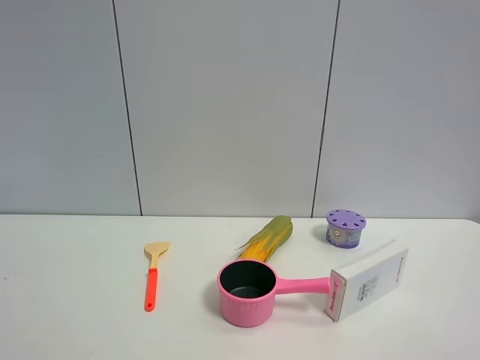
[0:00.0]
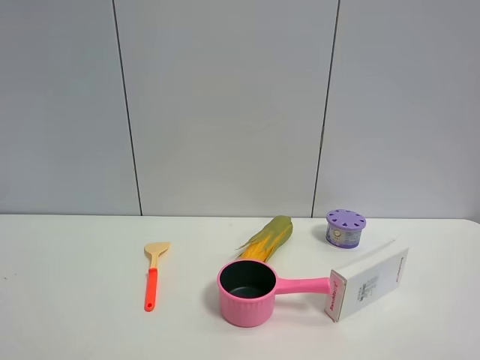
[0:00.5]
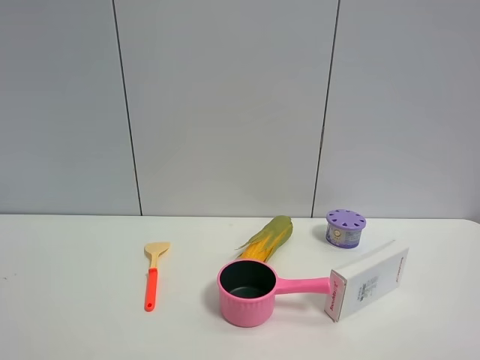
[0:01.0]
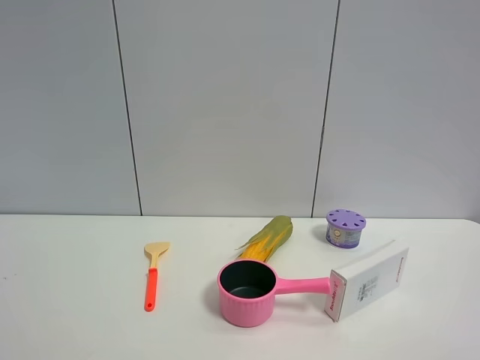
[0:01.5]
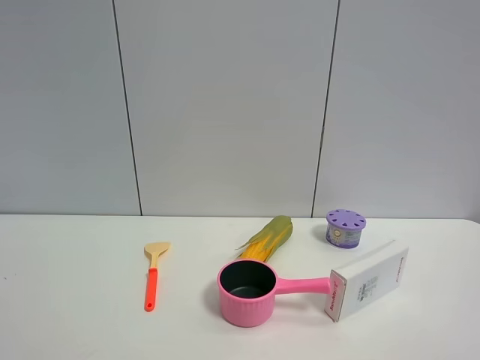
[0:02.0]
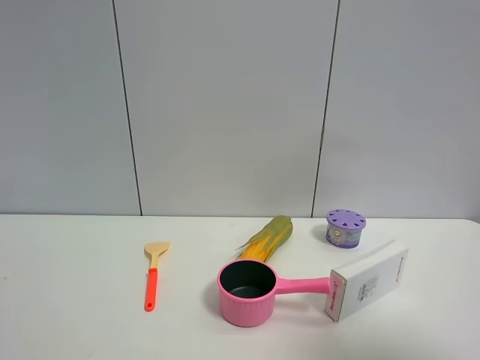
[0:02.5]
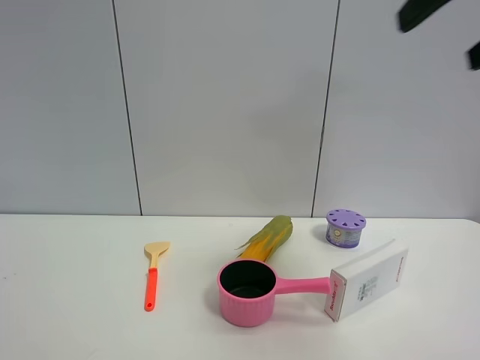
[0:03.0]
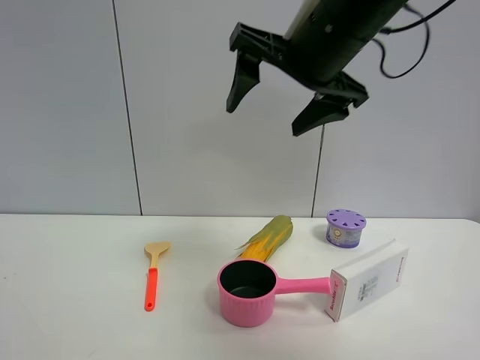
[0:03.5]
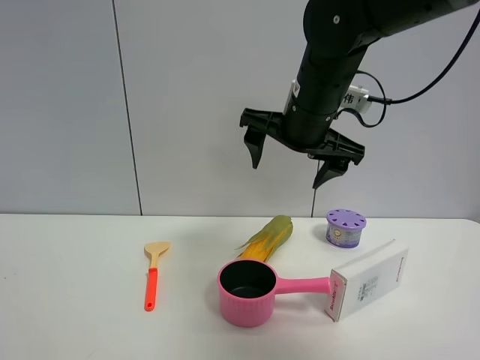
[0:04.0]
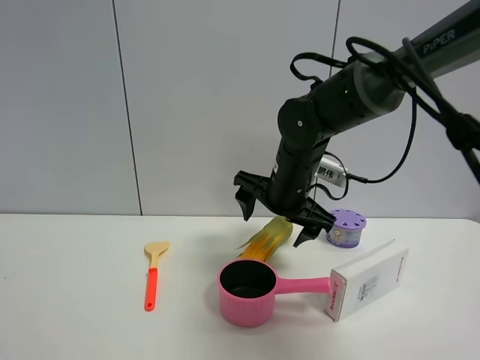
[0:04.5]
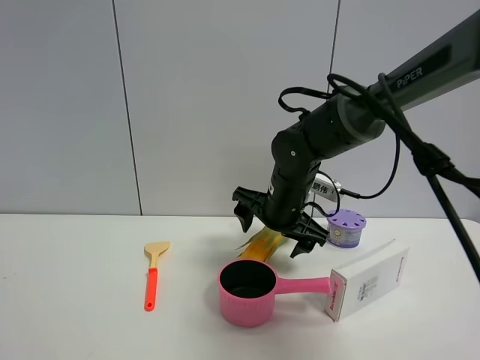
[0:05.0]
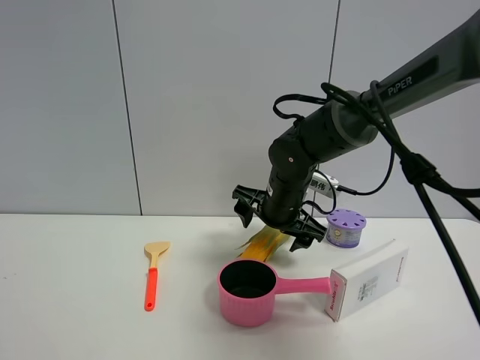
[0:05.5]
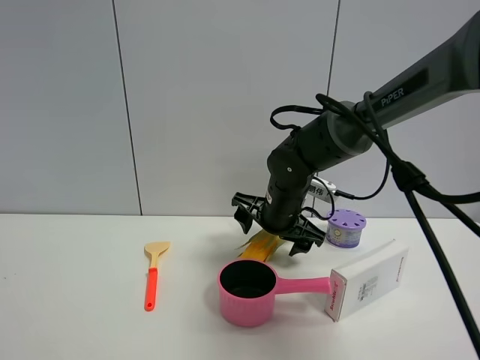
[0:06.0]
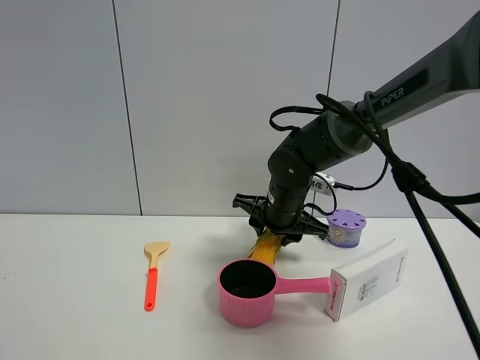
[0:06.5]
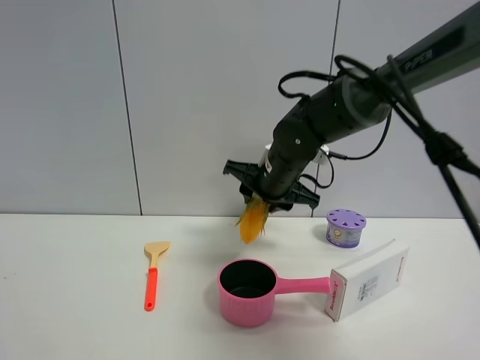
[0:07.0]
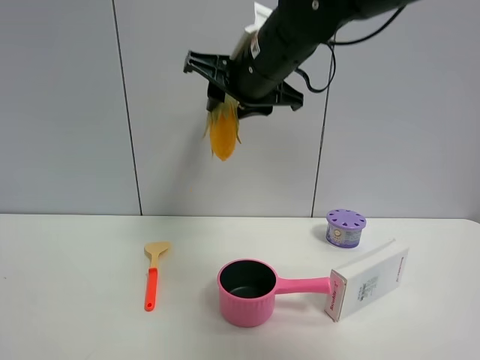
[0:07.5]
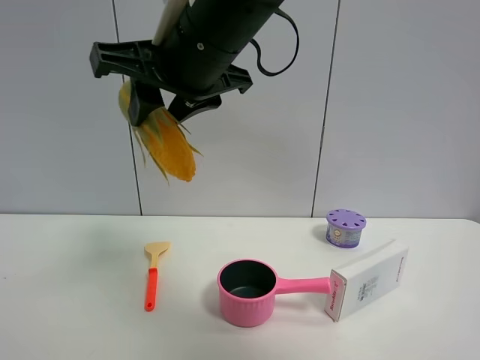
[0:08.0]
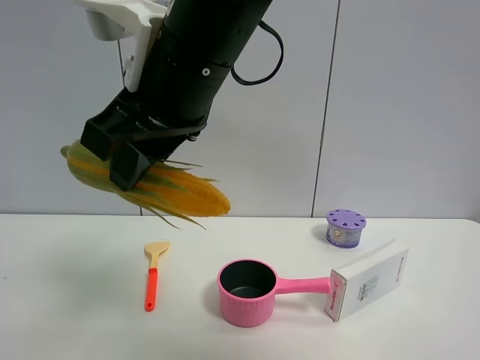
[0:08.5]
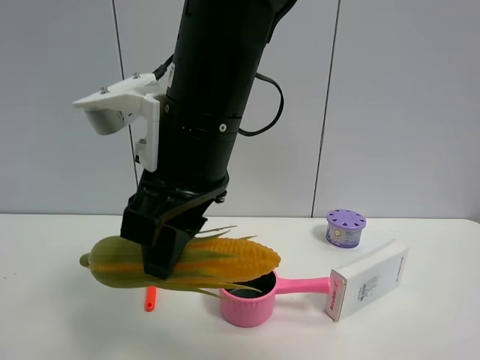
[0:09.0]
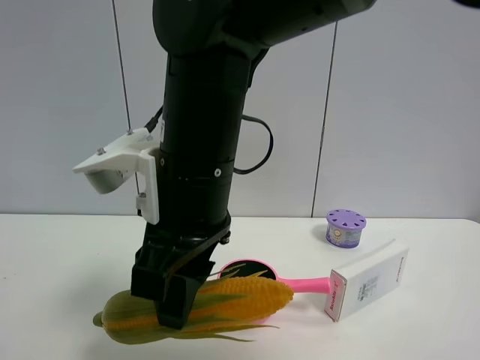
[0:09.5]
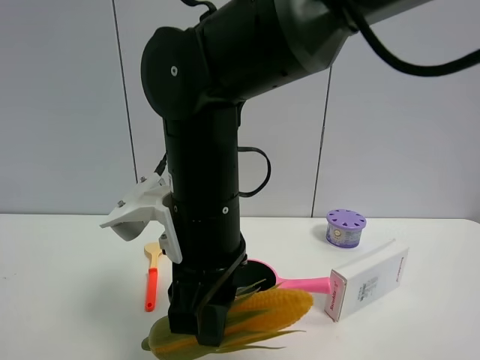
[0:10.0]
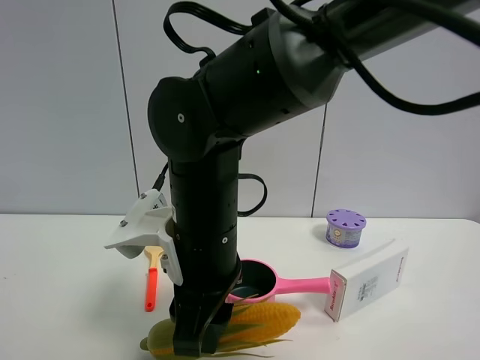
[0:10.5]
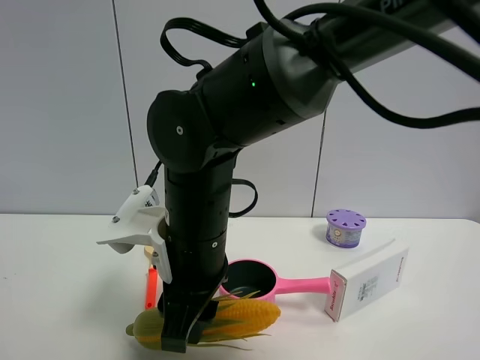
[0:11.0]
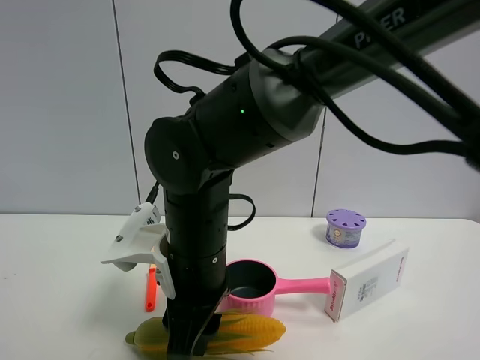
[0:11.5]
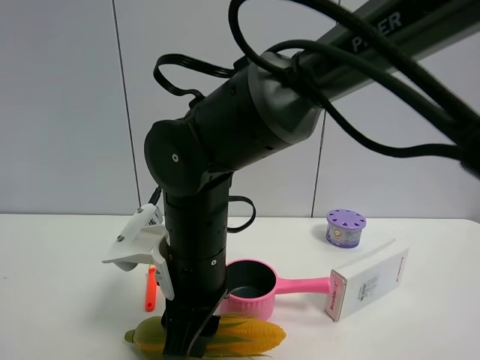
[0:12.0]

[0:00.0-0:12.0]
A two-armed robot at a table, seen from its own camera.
Task of the whole recording: the gripper move the object.
Step, 0.0 to 6.5 s: Grasp the corn with the right gripper.
0.0 to 2.0 s: Both grippers stay about where they are.
2.0 to 4.0 s: The right gripper travels forward and to the left by some 40 cm.
4.0 to 6.0 s: The right gripper goes about 15 cm downward.
6.0 to 8.0 s: The right gripper travels upward, backward and to the left by approximately 30 cm, and closes its fingers.
8.0 to 10.0 s: The right gripper shifts some 15 cm downward.
10.0 to 12.0 s: The right gripper travels downward by some 5 cm.

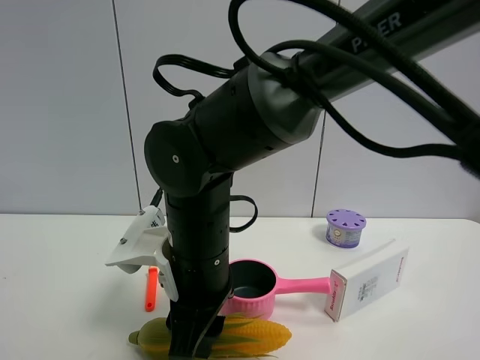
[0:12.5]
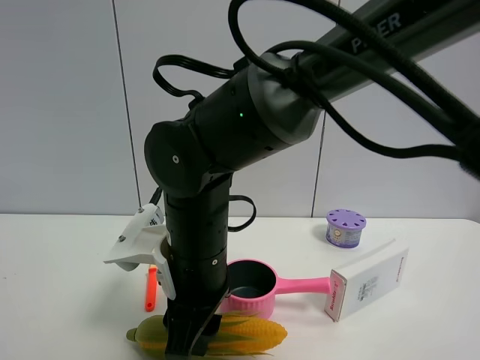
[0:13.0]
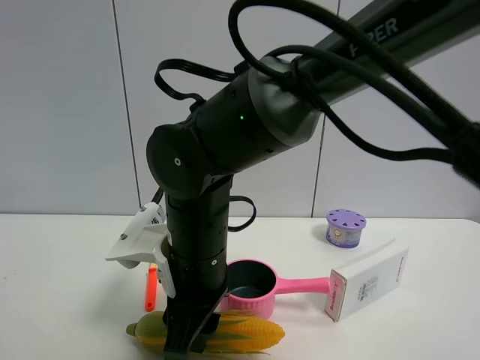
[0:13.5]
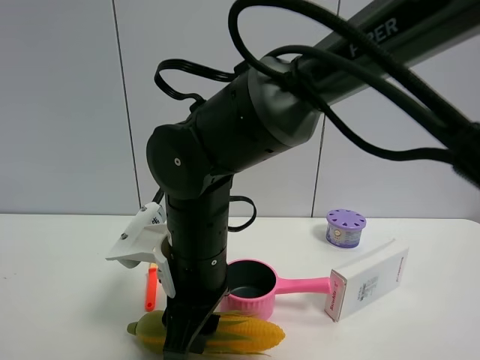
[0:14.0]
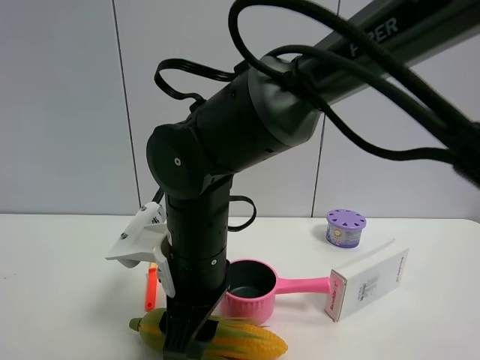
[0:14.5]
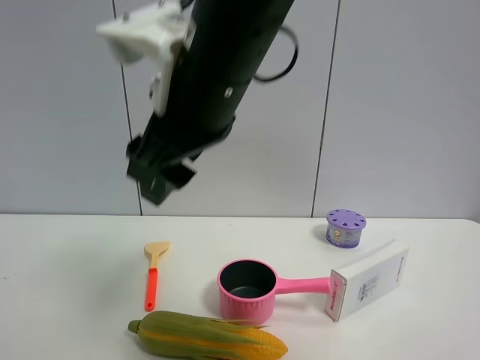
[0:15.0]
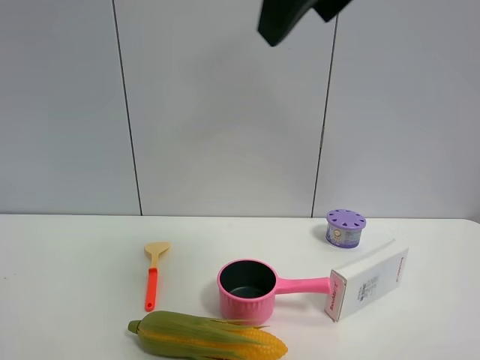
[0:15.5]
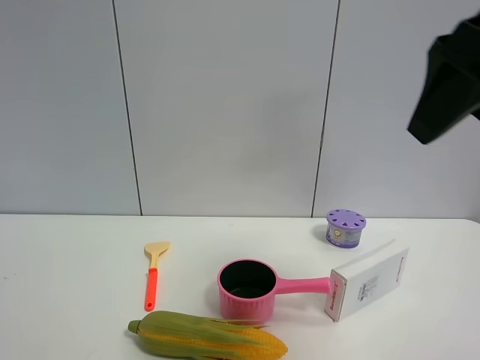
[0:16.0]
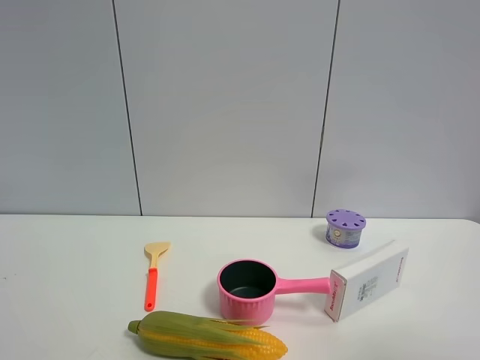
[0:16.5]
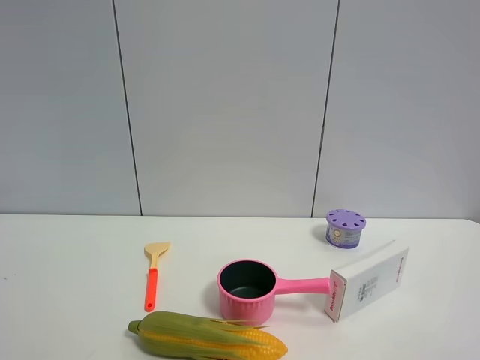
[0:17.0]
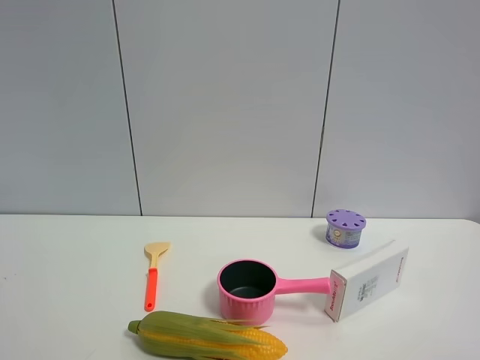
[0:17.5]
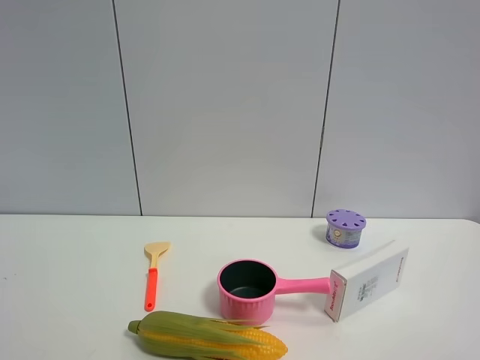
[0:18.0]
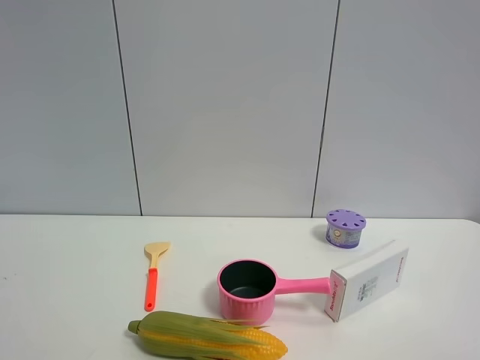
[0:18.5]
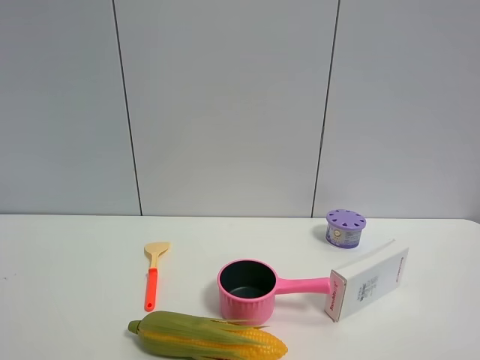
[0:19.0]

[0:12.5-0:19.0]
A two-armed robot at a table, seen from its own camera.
Task of the whole recording: the gripper move the object.
12.5 to 14.5 s: The right gripper opens.
14.5 to 17.0 s: The right gripper is displaced to the right, backward and upward by approximately 50 cm, and opens up.

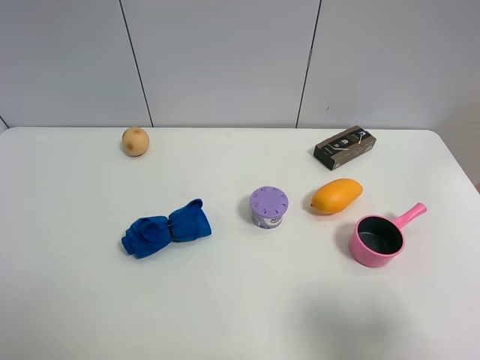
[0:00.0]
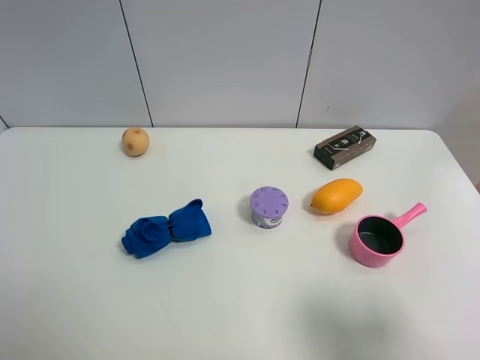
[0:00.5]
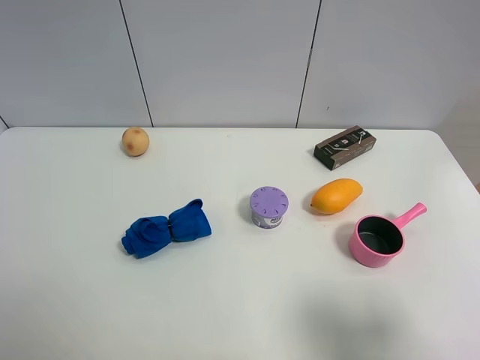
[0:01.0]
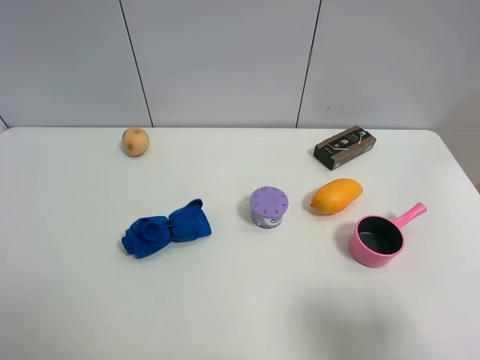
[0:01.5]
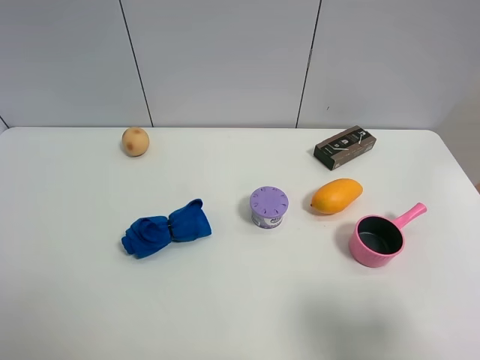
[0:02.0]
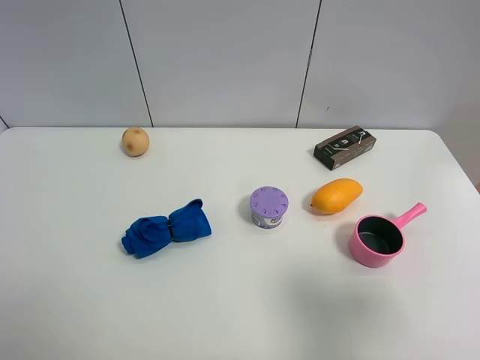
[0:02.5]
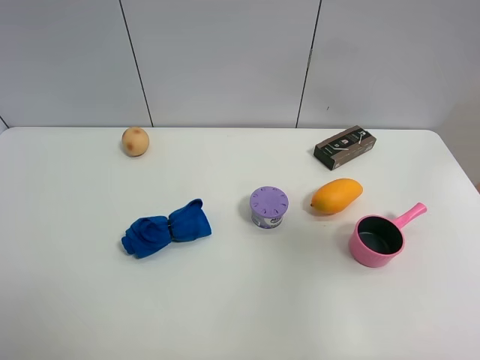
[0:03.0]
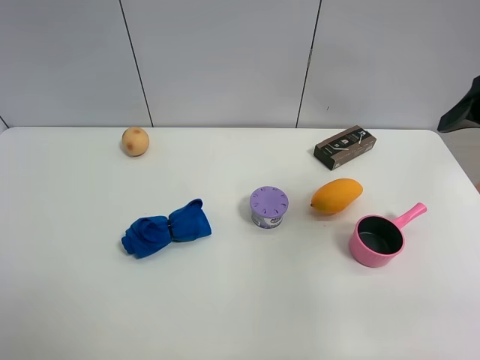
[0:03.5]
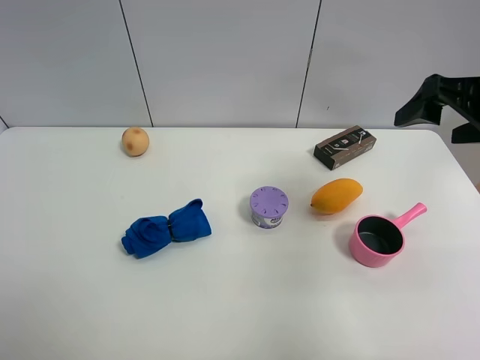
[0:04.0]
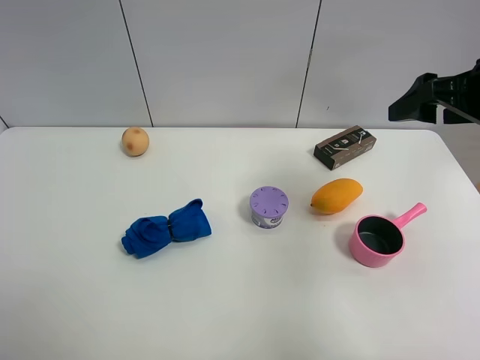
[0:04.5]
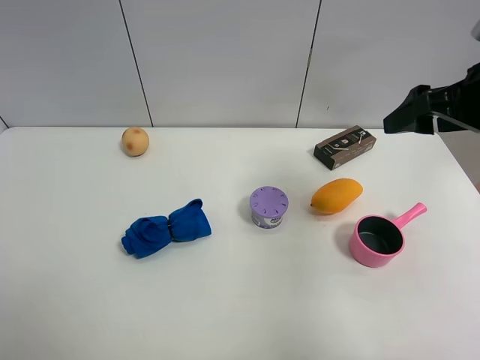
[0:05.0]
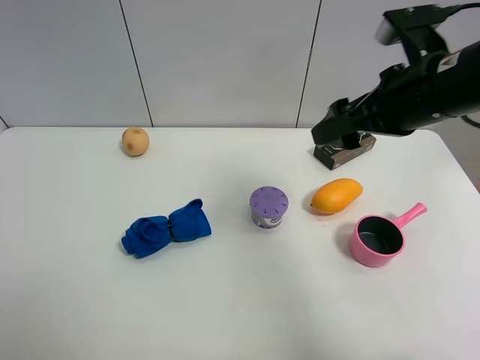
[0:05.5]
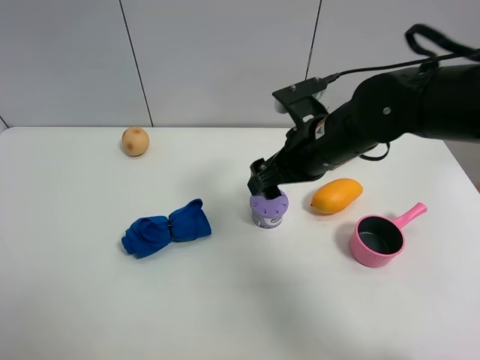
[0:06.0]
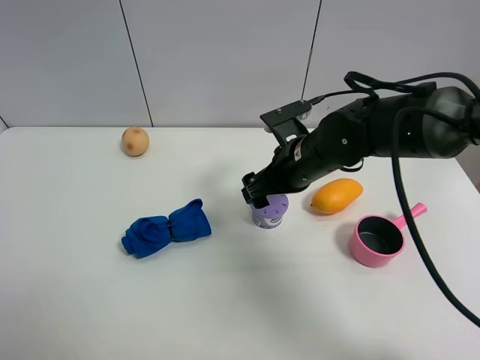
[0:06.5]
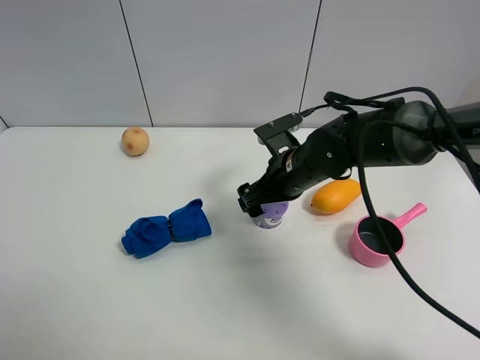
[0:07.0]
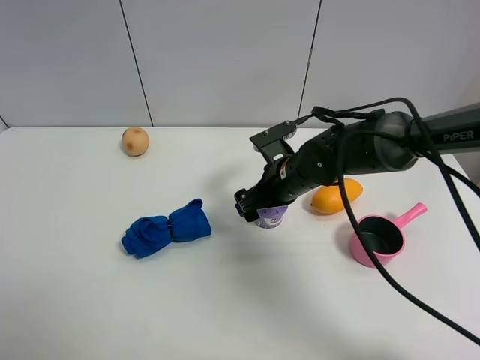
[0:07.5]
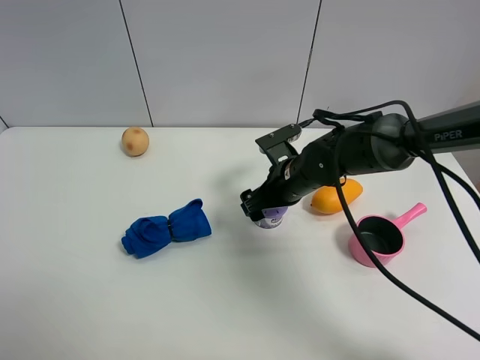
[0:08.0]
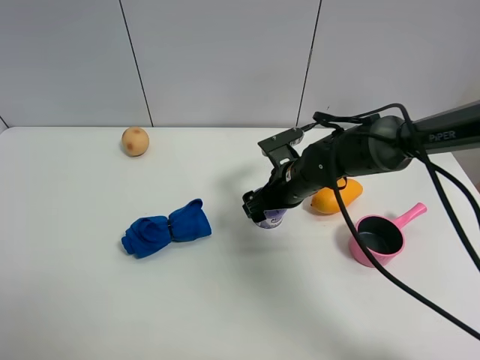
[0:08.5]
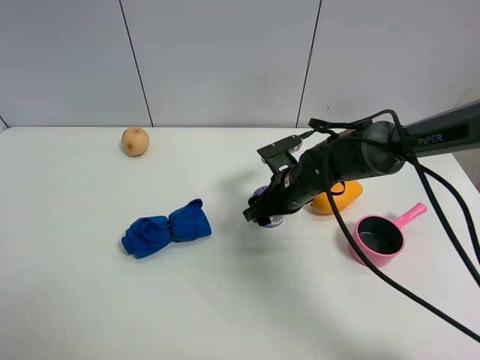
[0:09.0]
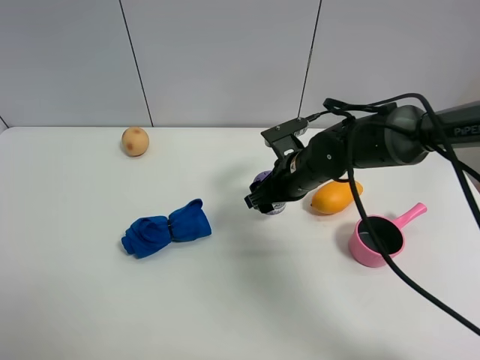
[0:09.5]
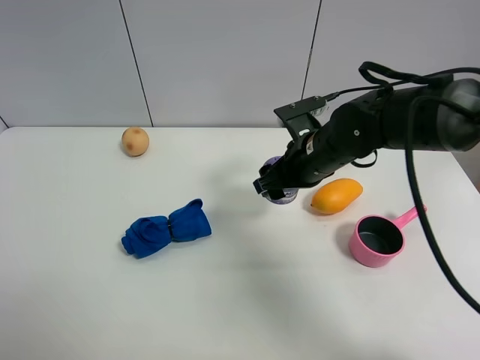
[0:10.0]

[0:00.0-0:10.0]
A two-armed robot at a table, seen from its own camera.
Task of the whole recording: the gripper move the object.
Step, 0.0 to 8.5 s: Grasp the Incense box with the right gripper.
0.0 to 2.0 s: Both grippers stay about where they are.
2.0 to 4.0 s: The right gripper travels forward by some 25 cm.
4.0 to 6.0 s: The right gripper is displaced to the left and downward by approximately 20 cm.
6.0 to 8.0 s: The right gripper travels downward by some 10 cm.
8.0 to 10.0 s: The right gripper moves upward, about 5 cm, and closes.
